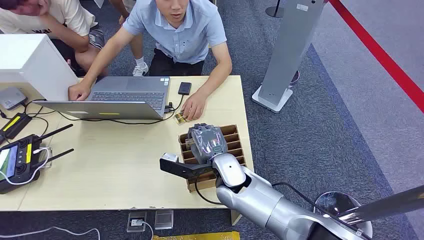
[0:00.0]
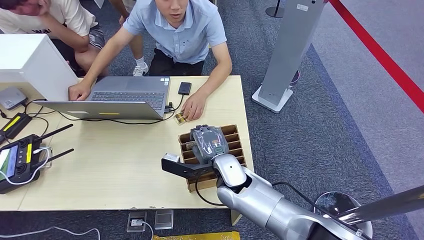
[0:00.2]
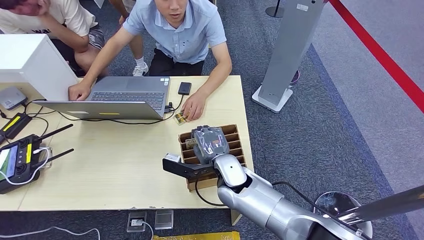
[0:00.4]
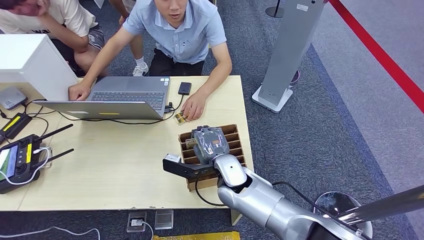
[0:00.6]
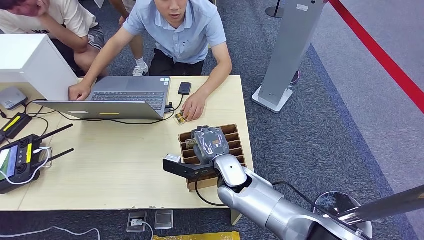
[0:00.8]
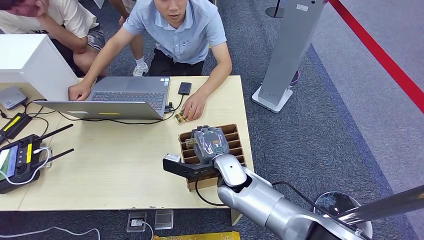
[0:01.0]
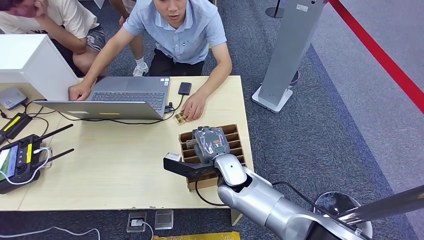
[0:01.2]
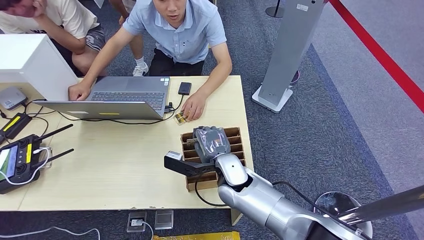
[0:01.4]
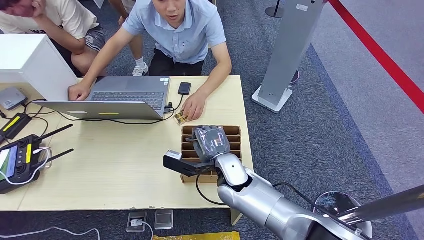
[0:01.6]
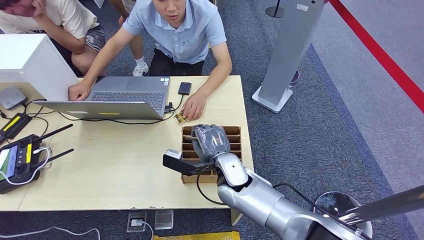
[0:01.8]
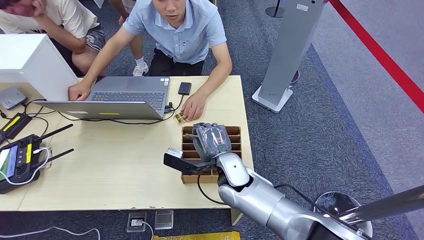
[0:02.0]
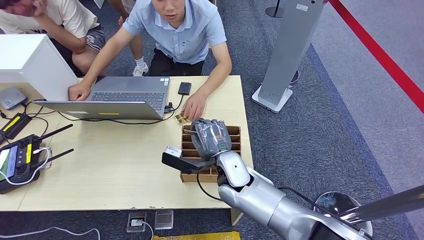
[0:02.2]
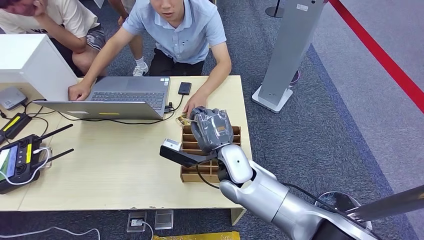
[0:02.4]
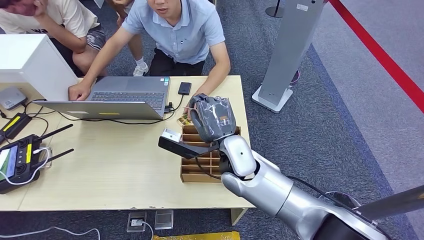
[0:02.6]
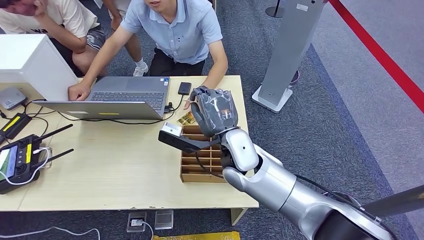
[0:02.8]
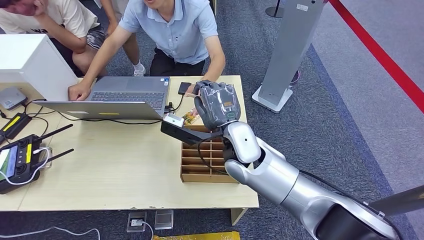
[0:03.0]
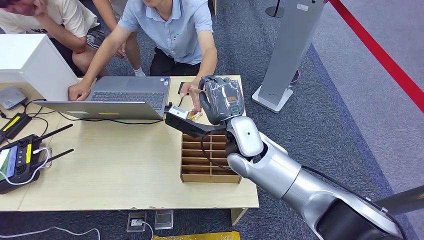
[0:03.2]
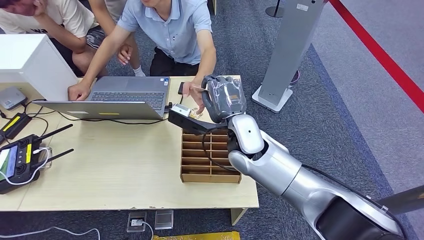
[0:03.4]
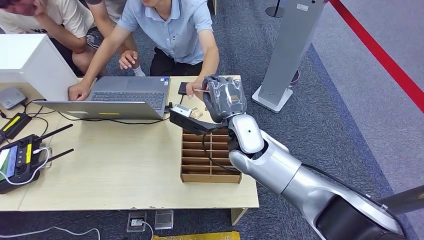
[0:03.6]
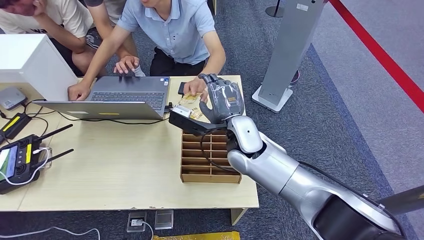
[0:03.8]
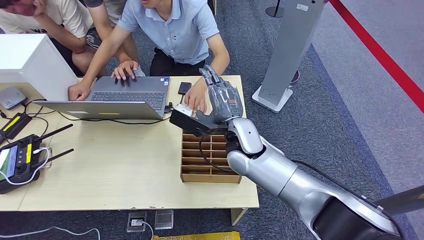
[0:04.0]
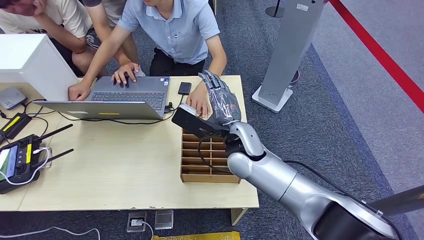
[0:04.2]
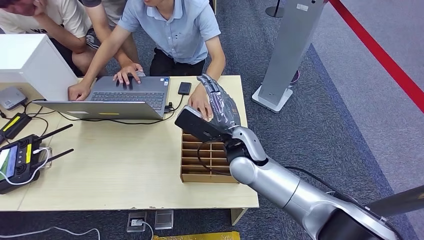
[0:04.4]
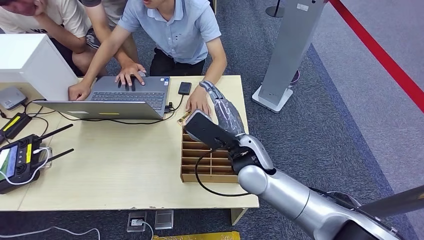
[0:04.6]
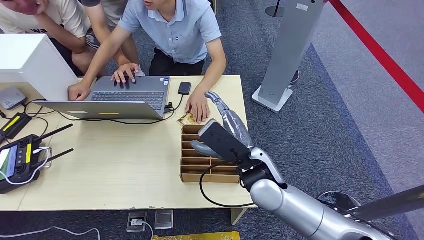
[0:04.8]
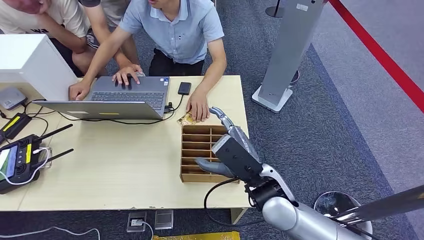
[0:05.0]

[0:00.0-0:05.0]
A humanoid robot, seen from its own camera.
Step, 0:00.0 to 0:02.4: Pick up the key card from the card box.
Step, 0:02.8 to 0:04.8: Hand the key card to the target.
0:03.4 to 0:05.0: The right hand moves backward, about 10 cm.
